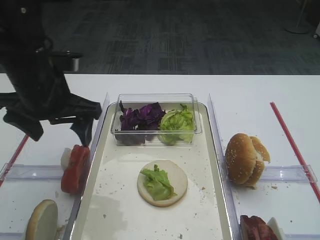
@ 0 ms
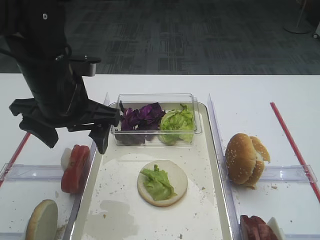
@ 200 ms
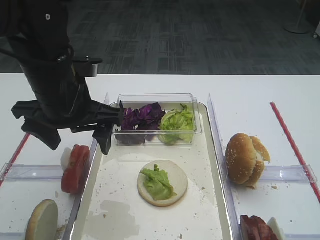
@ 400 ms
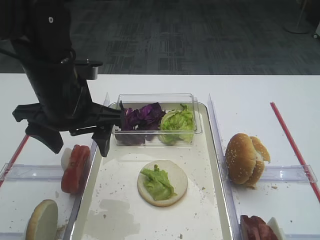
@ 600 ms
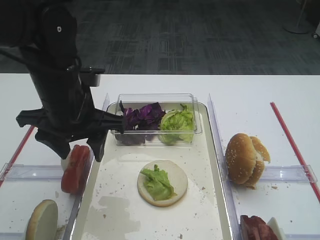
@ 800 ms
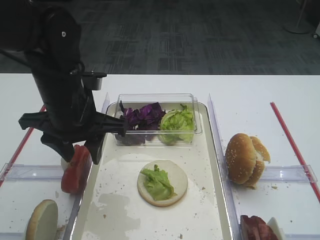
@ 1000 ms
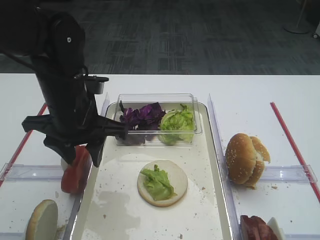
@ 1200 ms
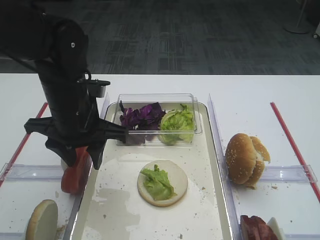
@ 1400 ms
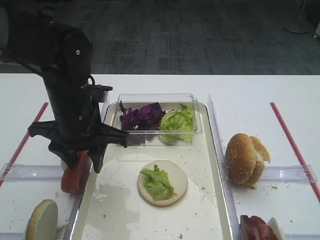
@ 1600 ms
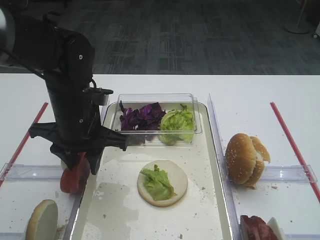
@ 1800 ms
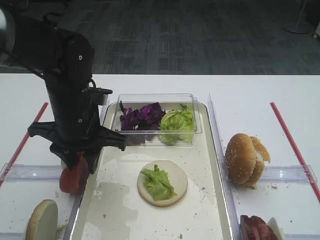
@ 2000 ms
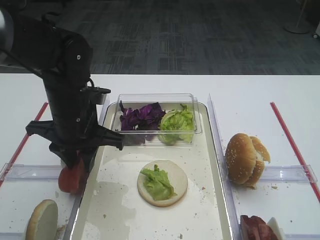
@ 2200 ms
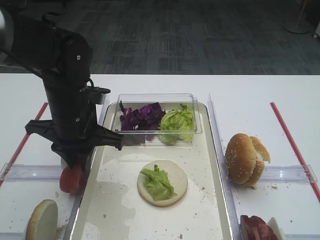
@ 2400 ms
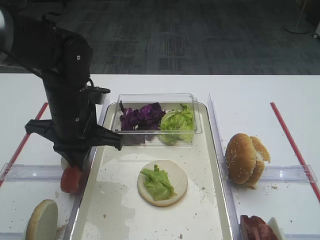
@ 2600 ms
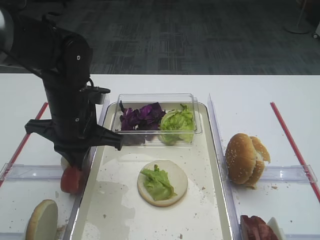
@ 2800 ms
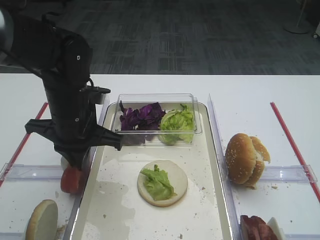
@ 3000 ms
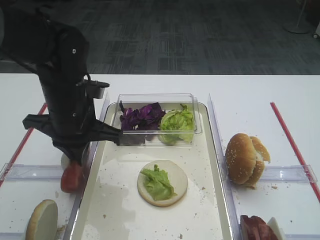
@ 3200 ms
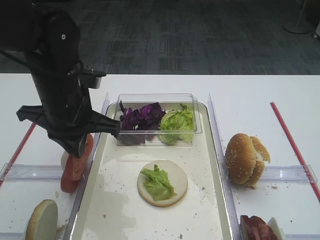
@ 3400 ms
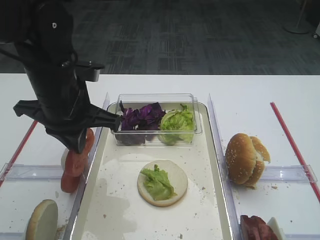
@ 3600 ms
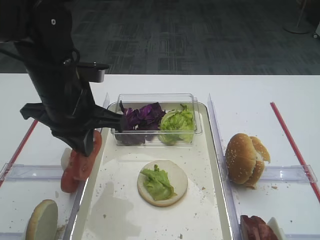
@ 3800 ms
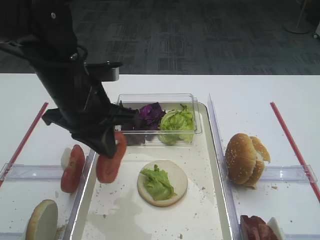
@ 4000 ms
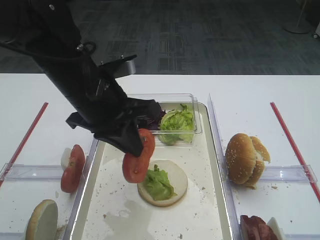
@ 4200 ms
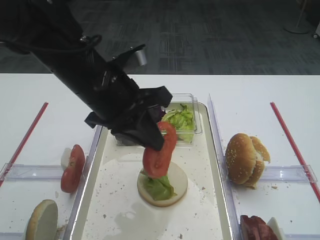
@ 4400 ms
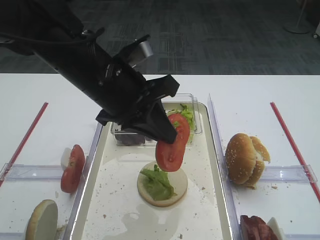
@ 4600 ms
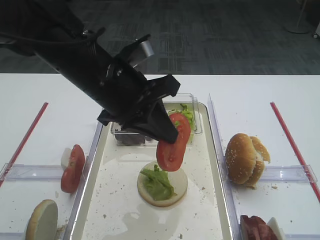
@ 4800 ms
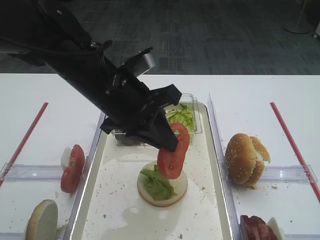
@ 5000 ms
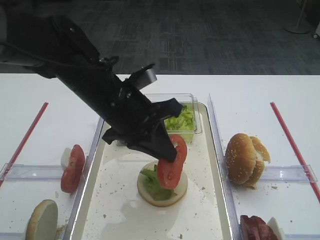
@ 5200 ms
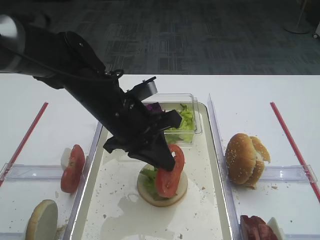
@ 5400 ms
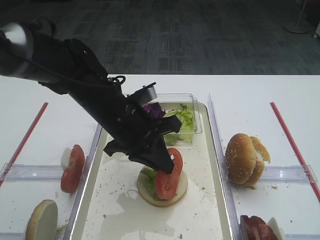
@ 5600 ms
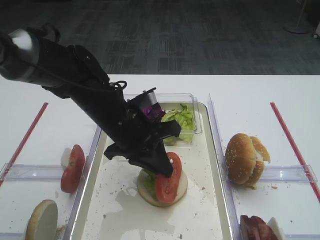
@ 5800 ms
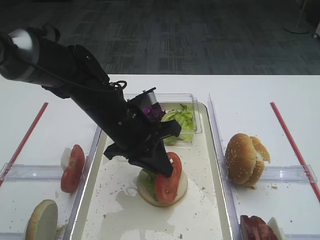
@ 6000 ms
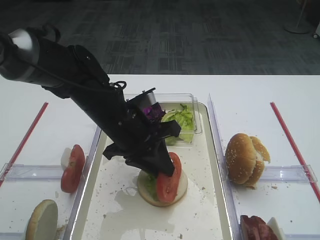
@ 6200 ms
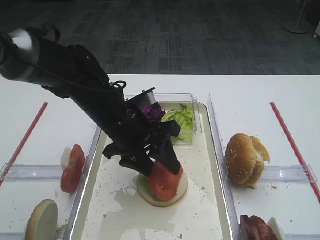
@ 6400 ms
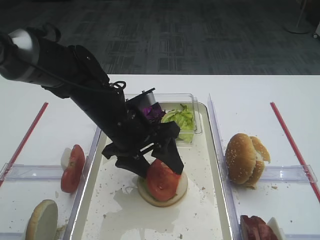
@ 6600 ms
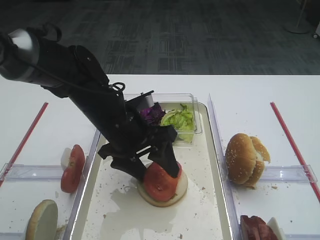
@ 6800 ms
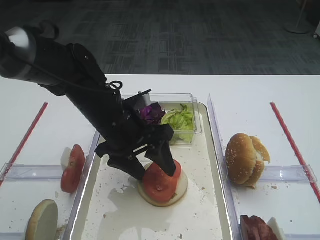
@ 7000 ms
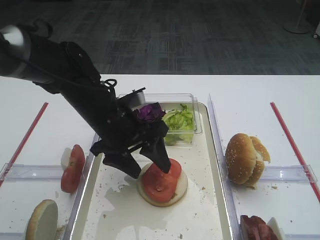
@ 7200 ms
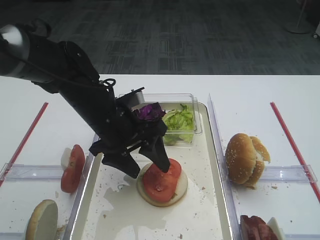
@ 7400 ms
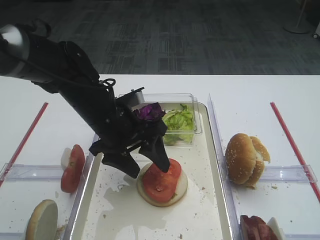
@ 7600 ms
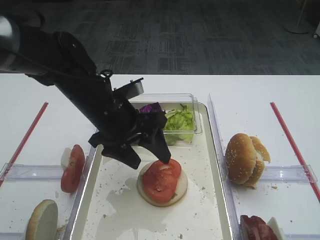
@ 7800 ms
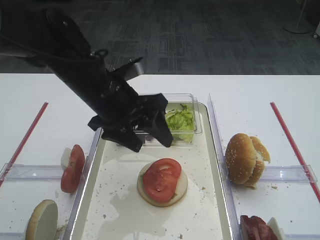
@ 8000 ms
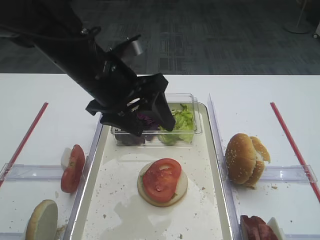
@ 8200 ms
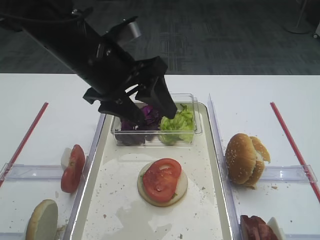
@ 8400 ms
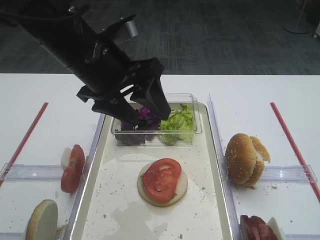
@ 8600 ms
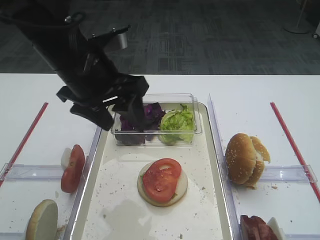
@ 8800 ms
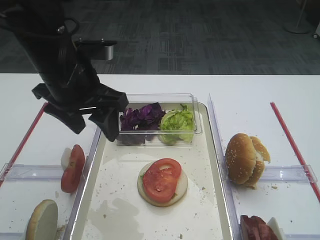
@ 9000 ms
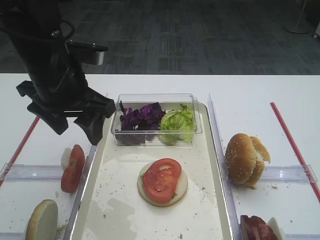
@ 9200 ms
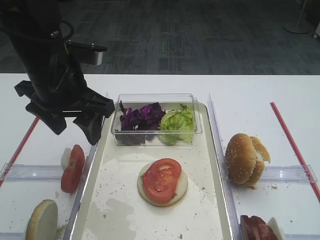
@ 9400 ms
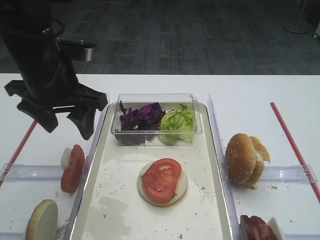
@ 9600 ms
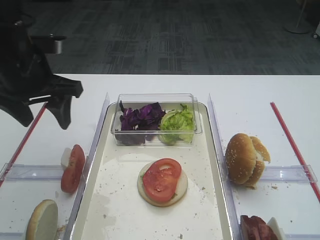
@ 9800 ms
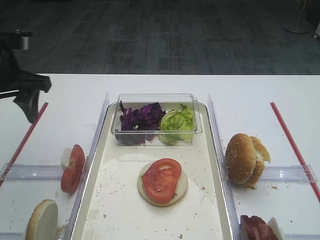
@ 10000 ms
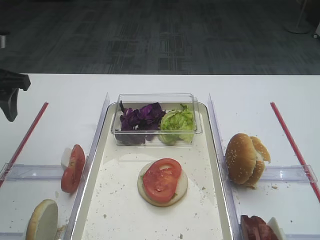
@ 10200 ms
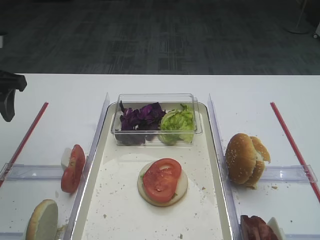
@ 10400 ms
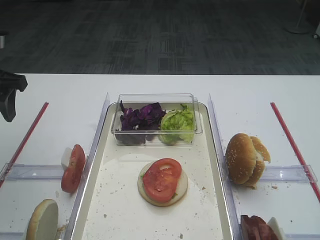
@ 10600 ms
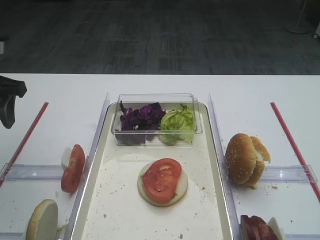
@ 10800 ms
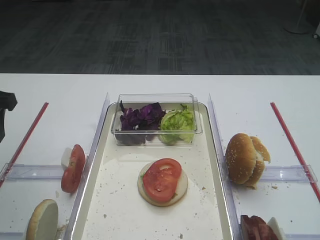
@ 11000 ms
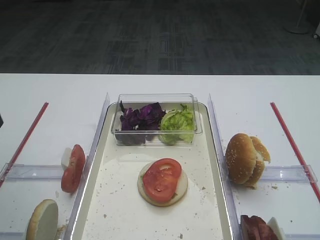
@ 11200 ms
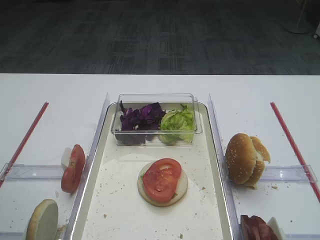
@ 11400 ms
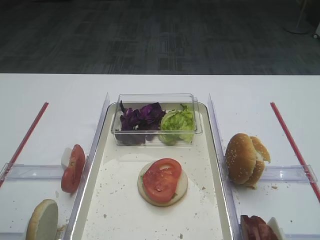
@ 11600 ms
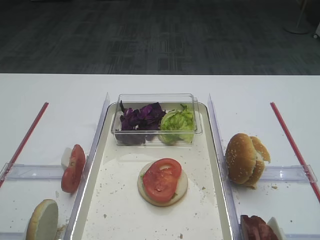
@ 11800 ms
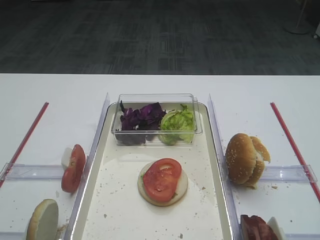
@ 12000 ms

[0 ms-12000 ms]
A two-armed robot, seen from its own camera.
Step, 0 ms to 3600 ms: Pick up the tomato slice with the left gripper.
Step, 3800 ms to 7800 ms: Place the tomato slice on the lettuce leaf with the left gripper.
0 ms to 1600 ms: The left gripper is displaced to the right by approximately 5 cm, and closes its fingers.
1600 ms to 3000 ms: The left gripper closes up.
3000 ms to 4400 ms: The left gripper travels upward by some 5 cm.
4400 ms to 6000 ms: The left gripper travels downward by some 10 cm.
6000 ms to 7600 ms: The left gripper opens up.
7600 ms to 9000 ms: The left gripper goes about 10 cm upward.
9000 ms to 10400 ms: The left gripper goes roughly 15 cm to the left.
10400 ms to 12000 ms: The left gripper heads backward, covering approximately 25 cm.

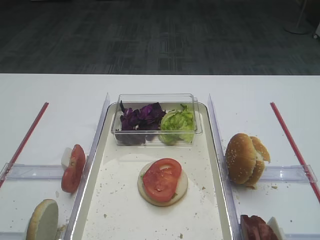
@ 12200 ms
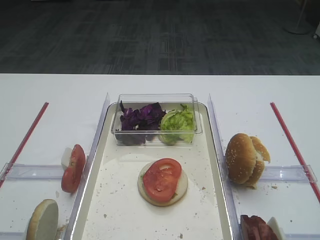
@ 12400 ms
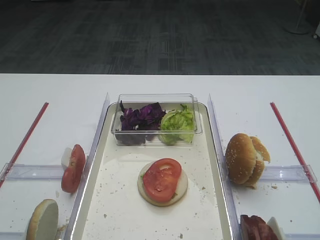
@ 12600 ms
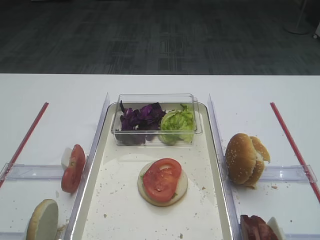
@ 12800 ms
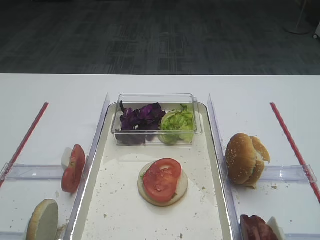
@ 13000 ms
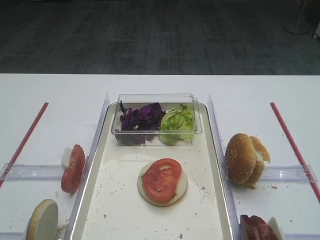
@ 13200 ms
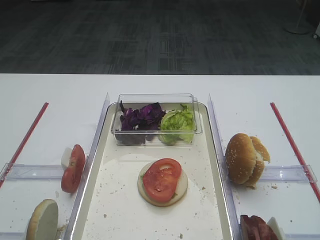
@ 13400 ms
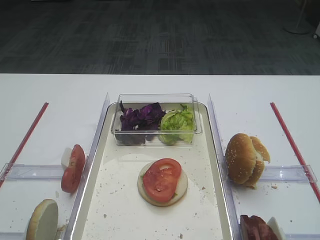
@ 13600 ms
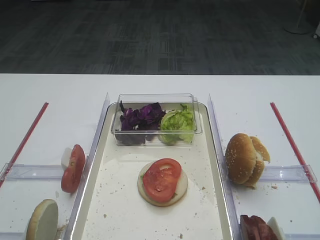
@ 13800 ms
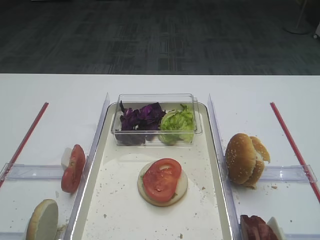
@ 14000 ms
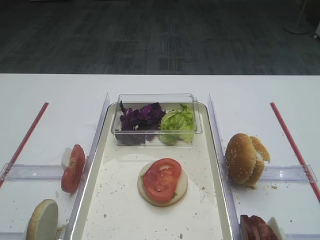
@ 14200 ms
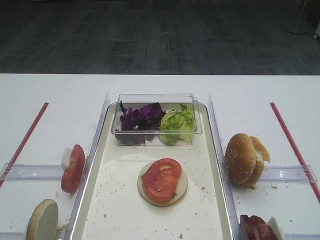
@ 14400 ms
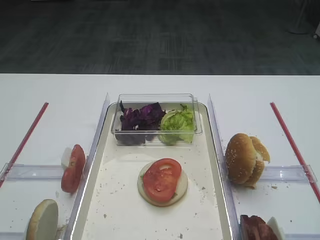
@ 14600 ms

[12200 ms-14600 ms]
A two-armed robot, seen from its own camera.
13400 ms to 14600 ms: Both grippers stay about where they are.

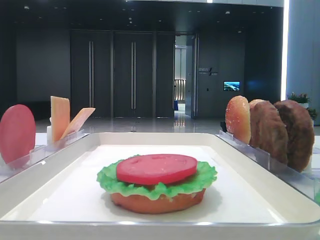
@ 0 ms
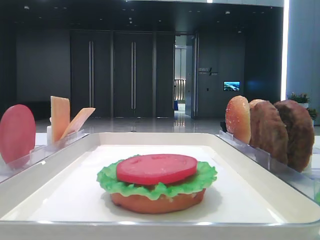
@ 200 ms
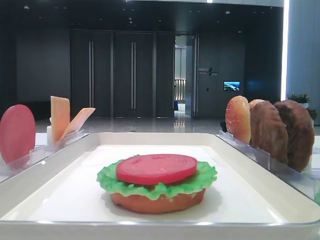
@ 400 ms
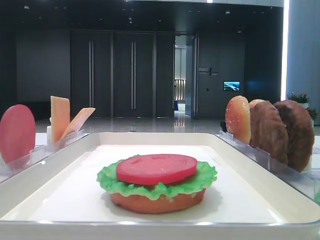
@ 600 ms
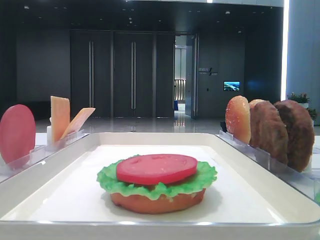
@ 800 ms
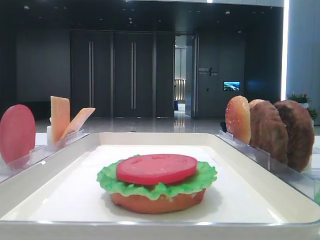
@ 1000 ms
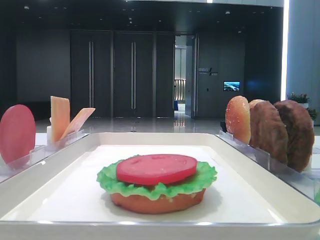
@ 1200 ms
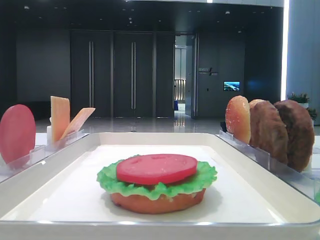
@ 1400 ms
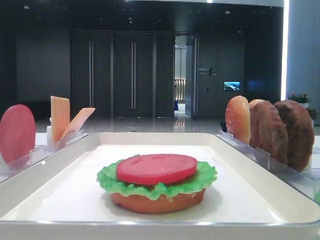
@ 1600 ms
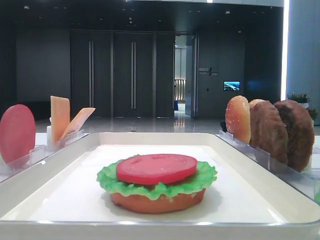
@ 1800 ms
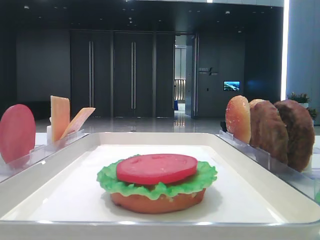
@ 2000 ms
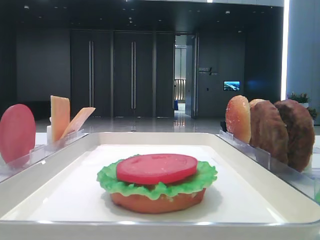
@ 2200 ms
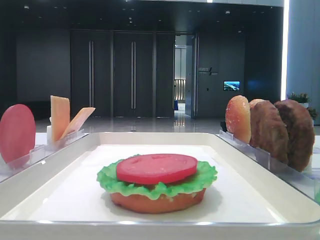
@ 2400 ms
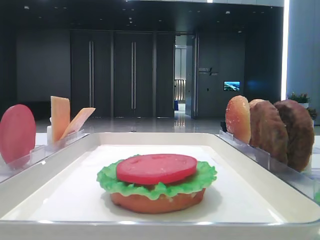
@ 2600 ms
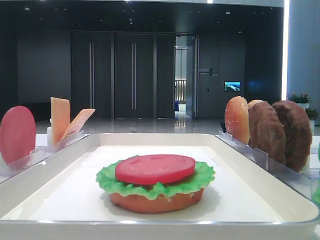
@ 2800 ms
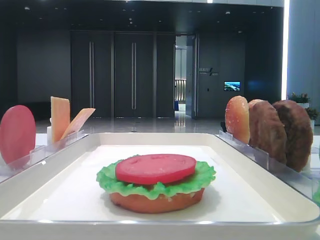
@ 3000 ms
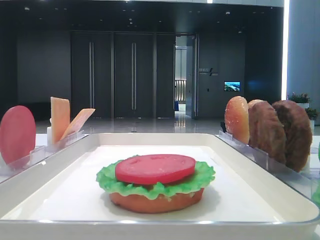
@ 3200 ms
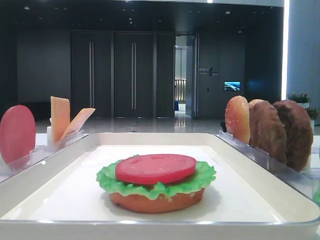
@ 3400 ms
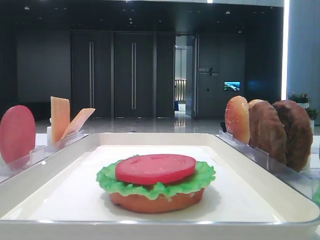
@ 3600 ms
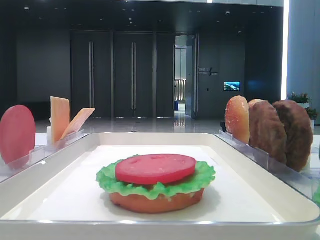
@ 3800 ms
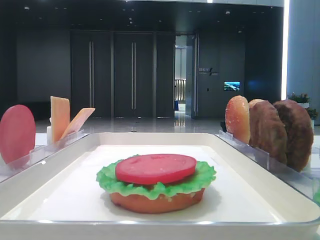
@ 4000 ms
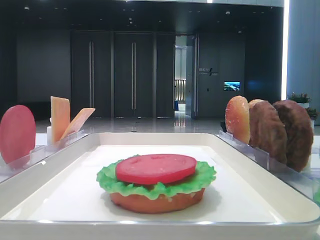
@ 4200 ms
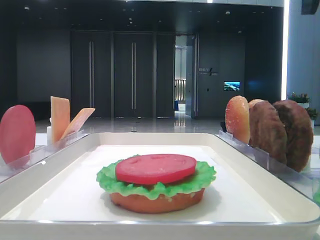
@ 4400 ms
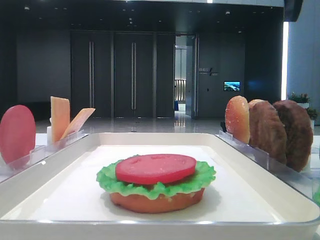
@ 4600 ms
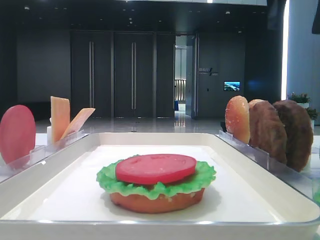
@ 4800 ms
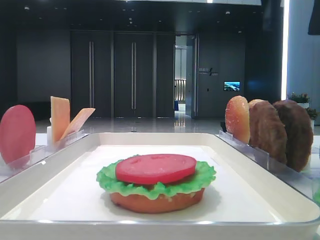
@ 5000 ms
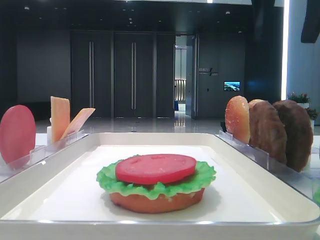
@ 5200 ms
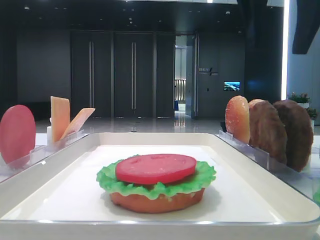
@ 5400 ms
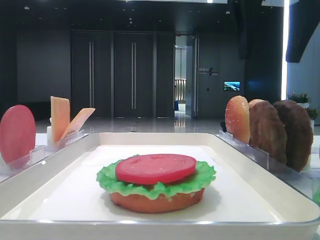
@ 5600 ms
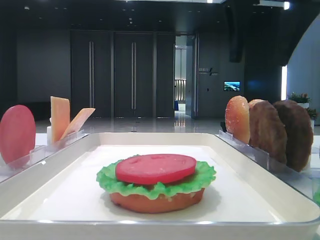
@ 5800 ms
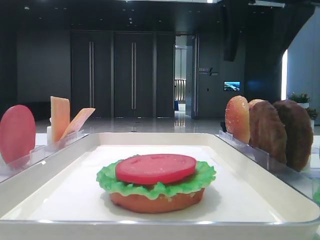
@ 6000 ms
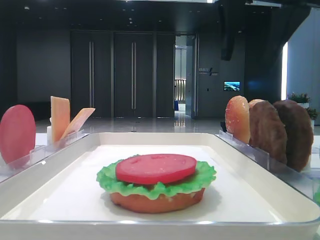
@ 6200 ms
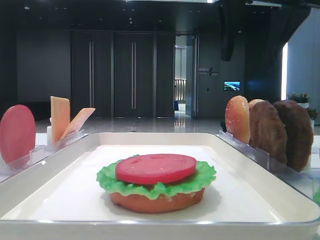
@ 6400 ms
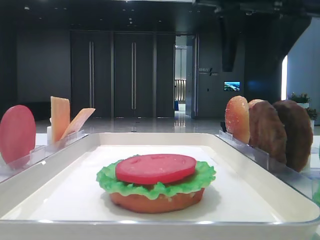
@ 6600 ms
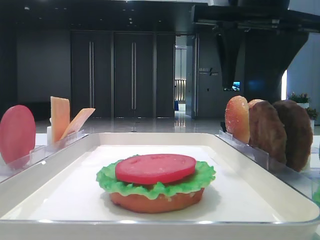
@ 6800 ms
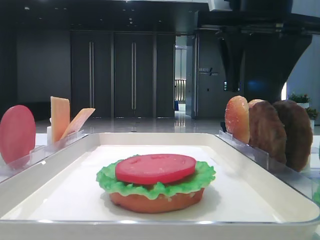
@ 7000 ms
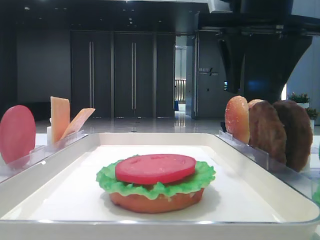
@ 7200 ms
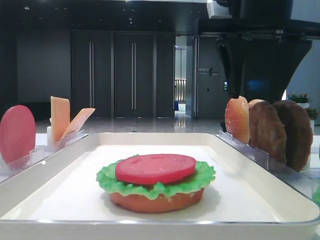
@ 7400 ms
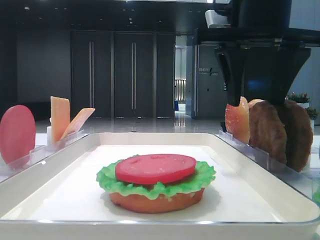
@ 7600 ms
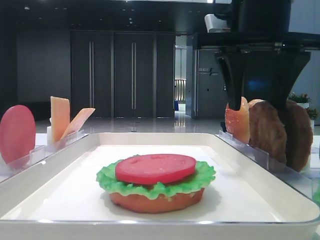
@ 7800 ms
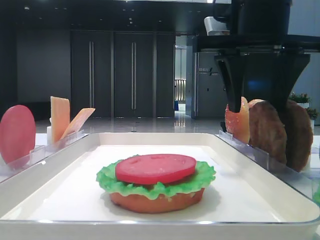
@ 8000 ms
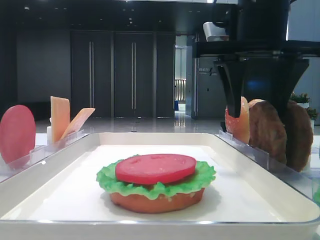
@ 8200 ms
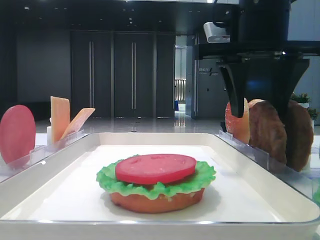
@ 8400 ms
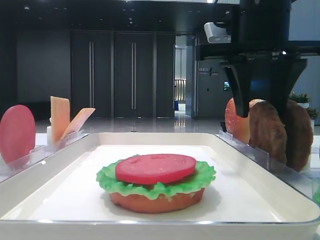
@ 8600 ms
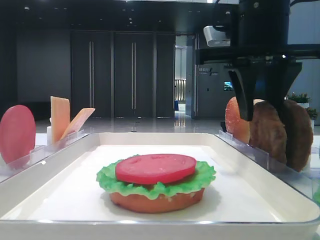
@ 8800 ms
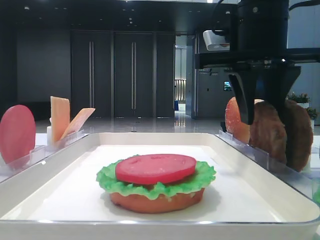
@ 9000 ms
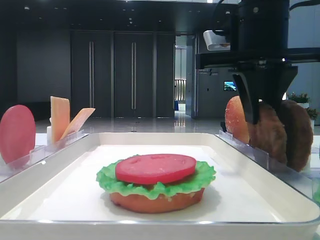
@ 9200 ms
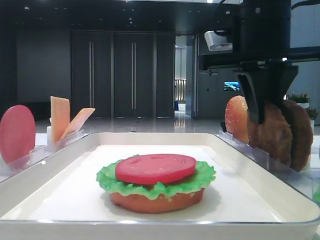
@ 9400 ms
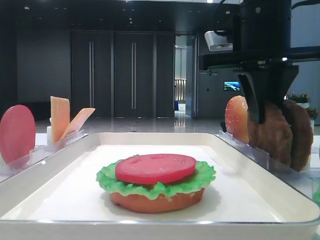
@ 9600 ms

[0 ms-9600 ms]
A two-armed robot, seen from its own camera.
1600 ms to 3200 ms: The right gripper moves forward, roughly 20 cm.
3200 ms to 4800 ms: The right gripper moves to the left, some 10 cm.
4800 ms to 6400 ms: The right gripper shifts by approximately 5 cm.
6400 ms to 8000 ms: The right gripper heads downward, covering approximately 5 cm.
8000 ms to 9600 ms: The right gripper closes its fingers.
